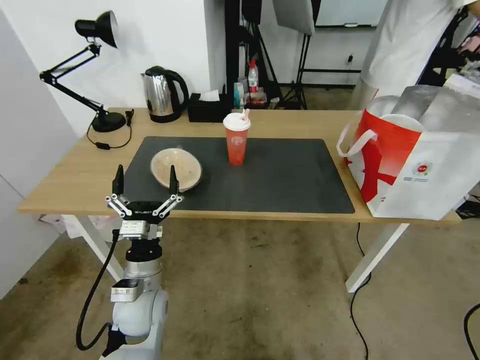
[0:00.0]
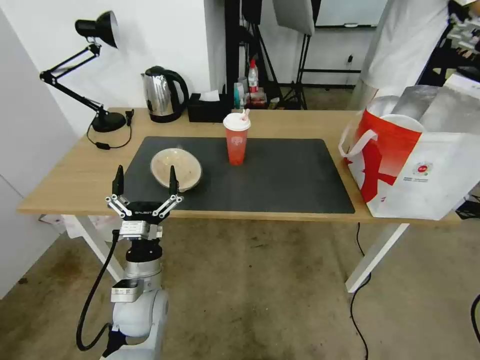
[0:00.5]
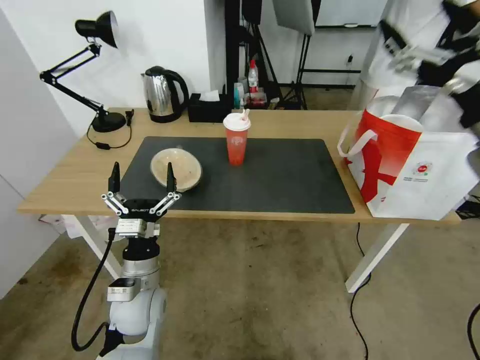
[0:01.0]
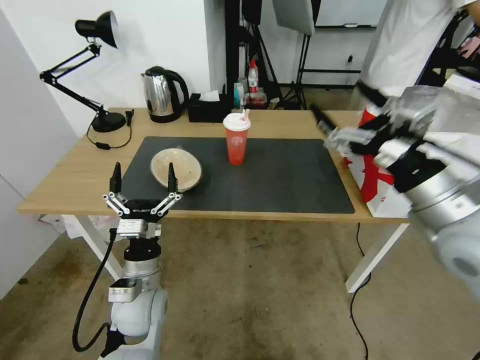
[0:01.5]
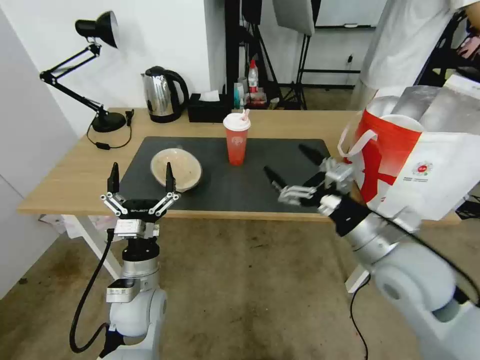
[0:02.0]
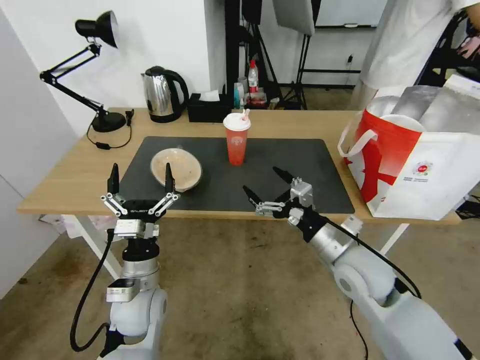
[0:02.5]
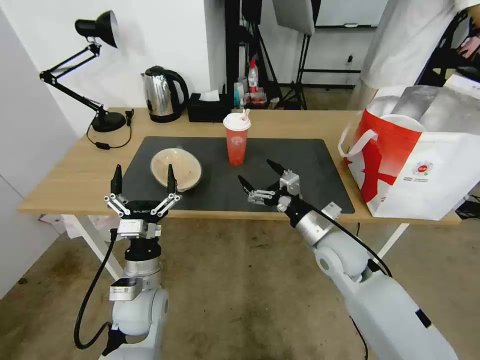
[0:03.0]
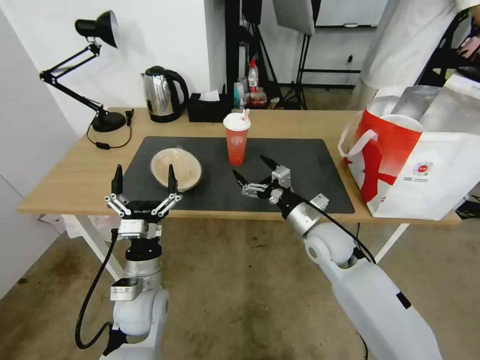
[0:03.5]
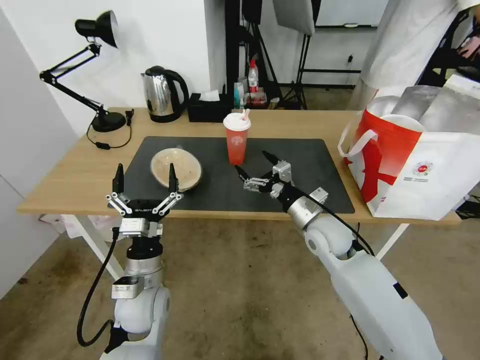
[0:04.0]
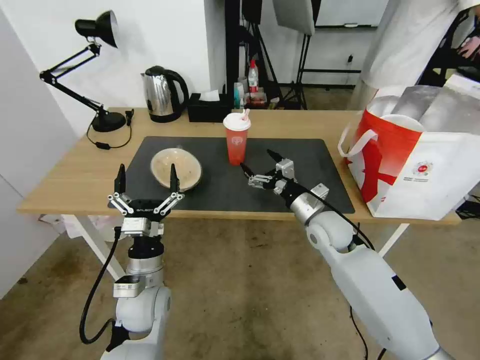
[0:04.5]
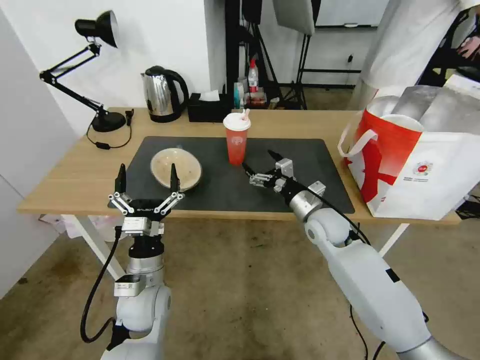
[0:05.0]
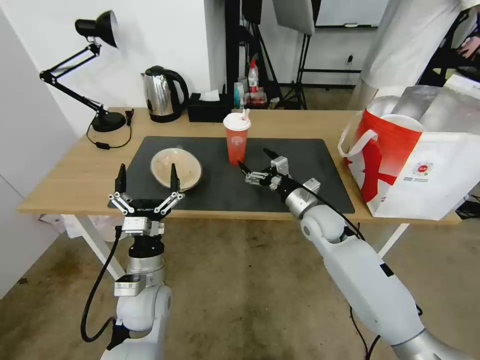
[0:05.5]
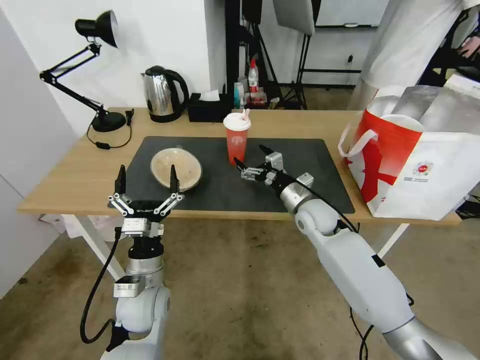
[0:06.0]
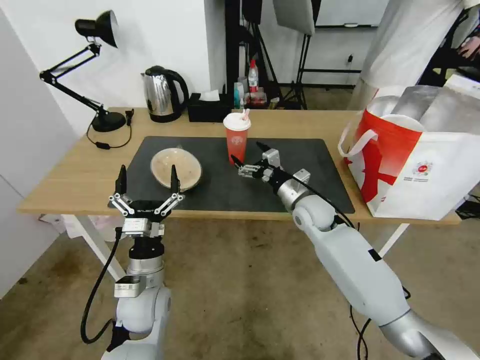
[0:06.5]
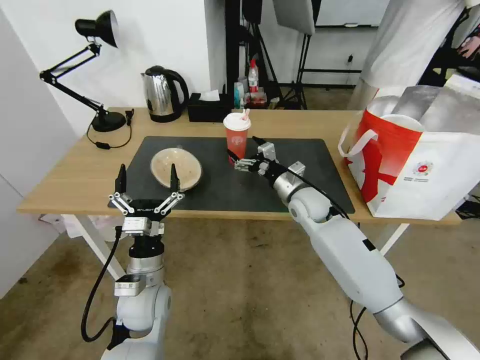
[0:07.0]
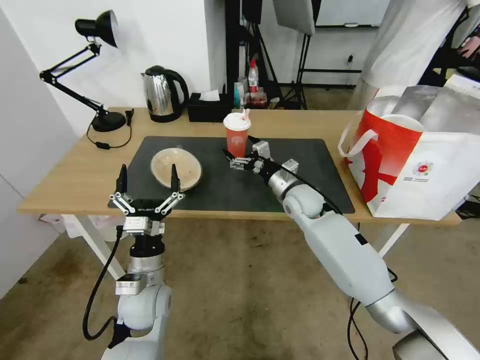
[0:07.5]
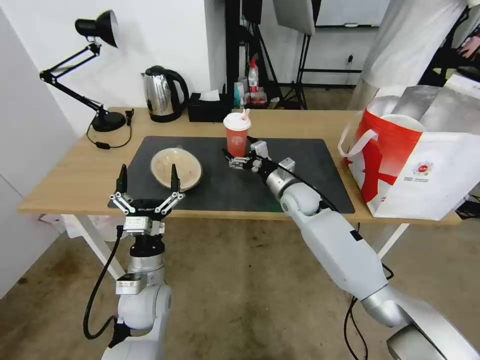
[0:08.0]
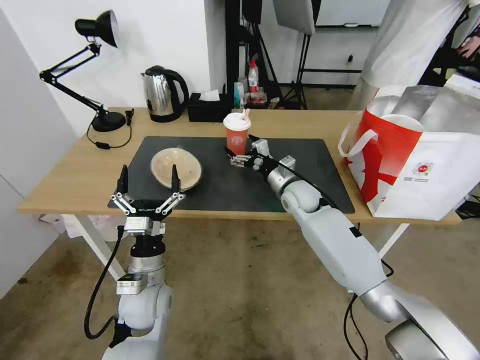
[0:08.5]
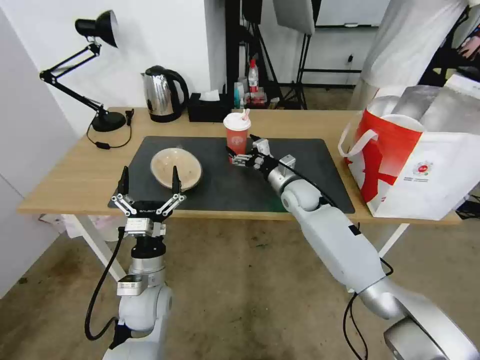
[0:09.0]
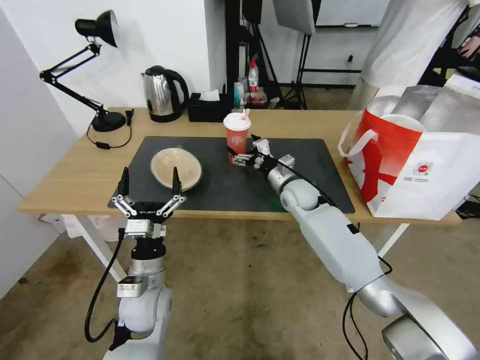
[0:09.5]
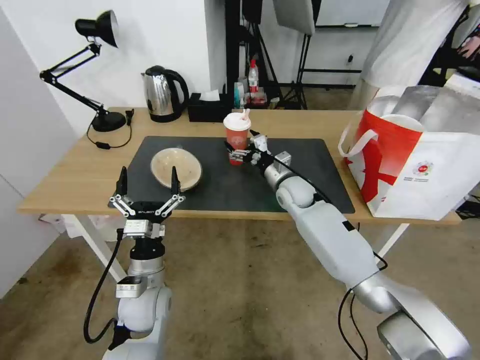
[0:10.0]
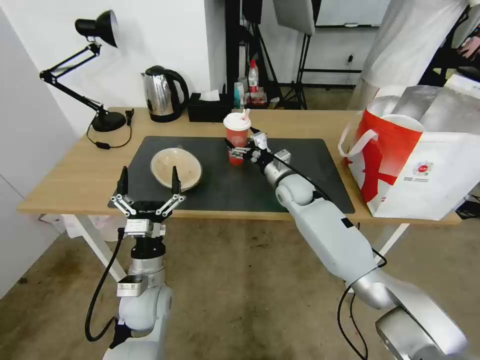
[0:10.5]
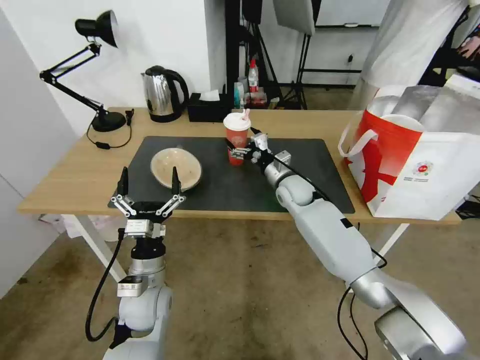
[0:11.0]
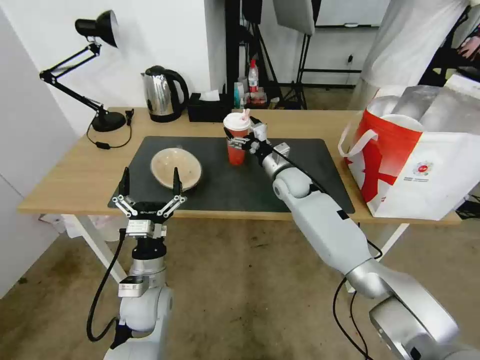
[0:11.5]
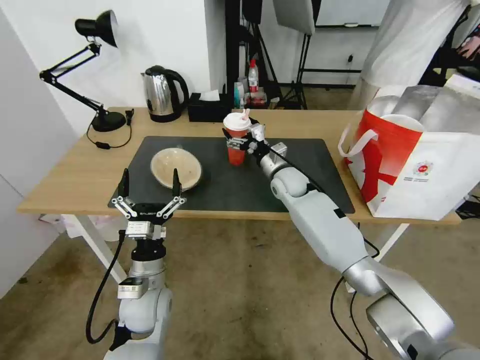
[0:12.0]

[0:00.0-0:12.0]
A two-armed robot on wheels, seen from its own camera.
Task of the whole recording: Pick up the trash from the table and place it into the takeout bag.
0.0 to 2.0 s: The right gripper travels to the left, downward and backward by some 30 cm.
2.0 to 4.0 s: The right gripper goes some 20 cm forward, downward and to the left.
4.0 to 6.0 s: The right gripper moves forward, some 5 cm.
6.0 to 8.0 s: The right gripper shifts approximately 5 cm forward.
8.0 to 12.0 s: The grippers stay close to where they were, moving slightly.

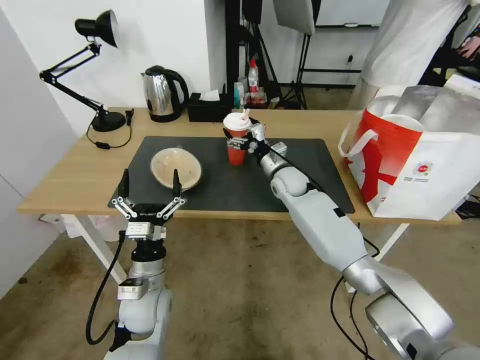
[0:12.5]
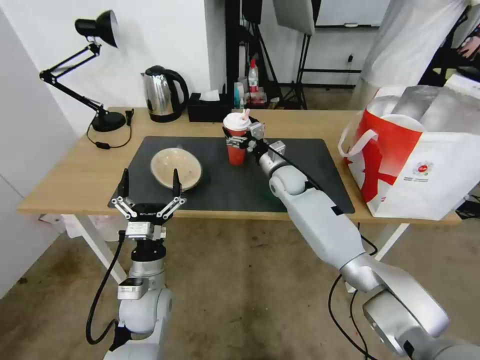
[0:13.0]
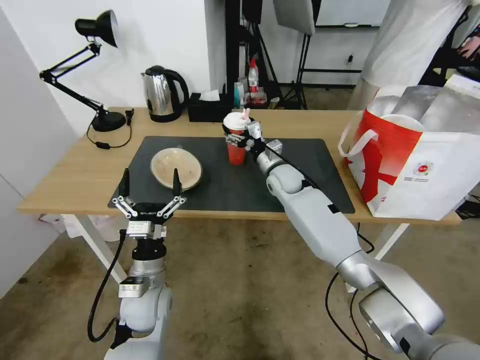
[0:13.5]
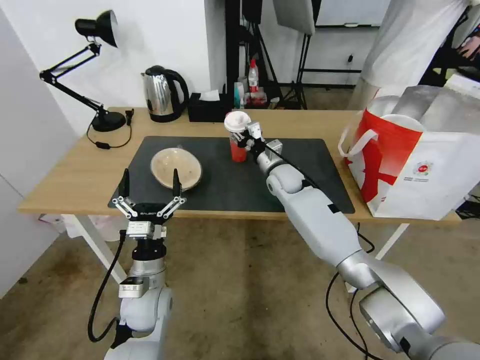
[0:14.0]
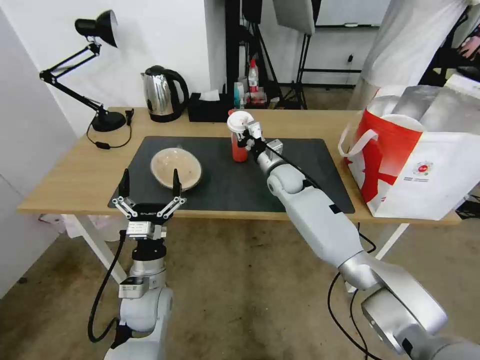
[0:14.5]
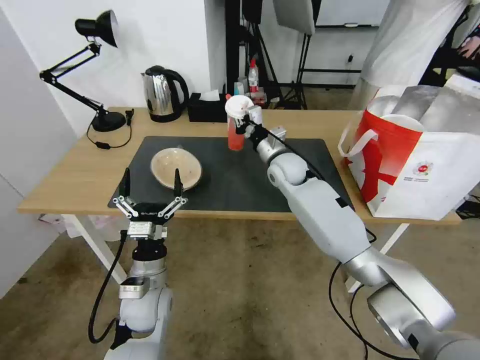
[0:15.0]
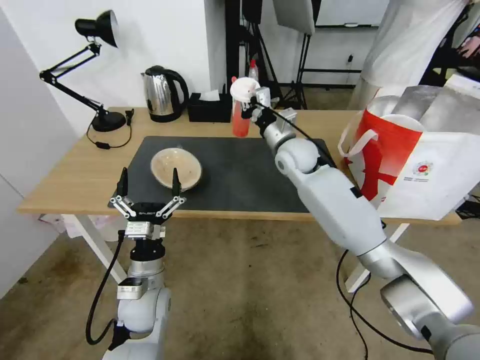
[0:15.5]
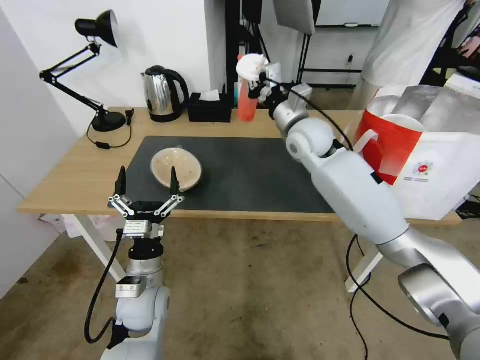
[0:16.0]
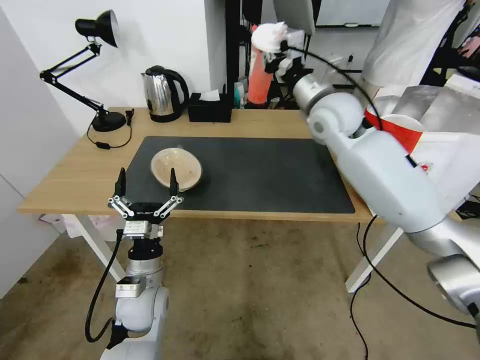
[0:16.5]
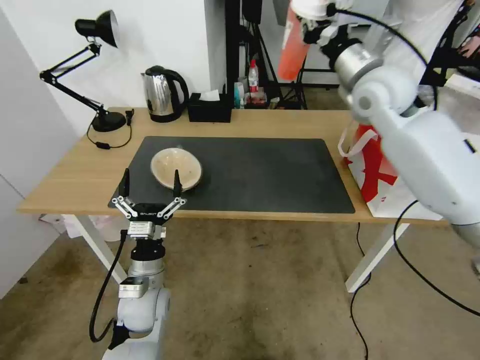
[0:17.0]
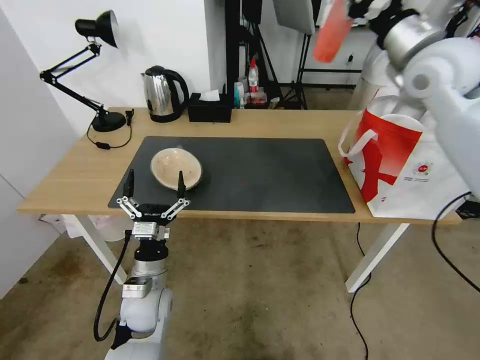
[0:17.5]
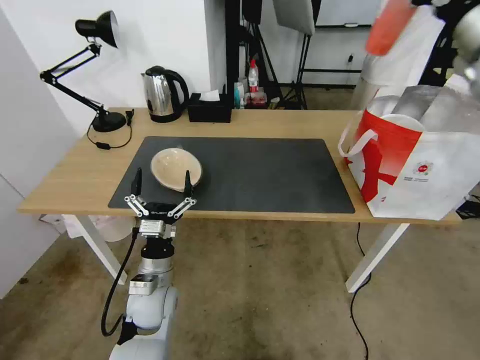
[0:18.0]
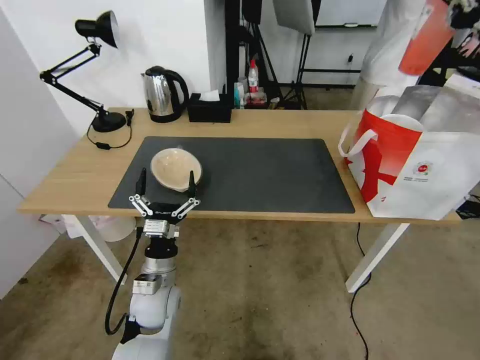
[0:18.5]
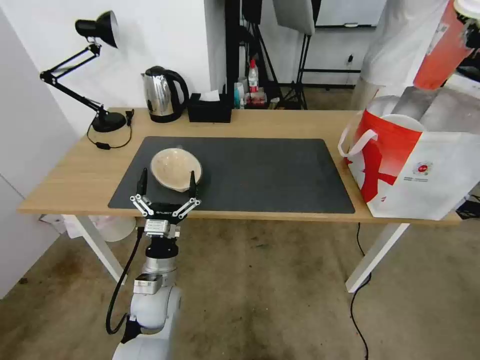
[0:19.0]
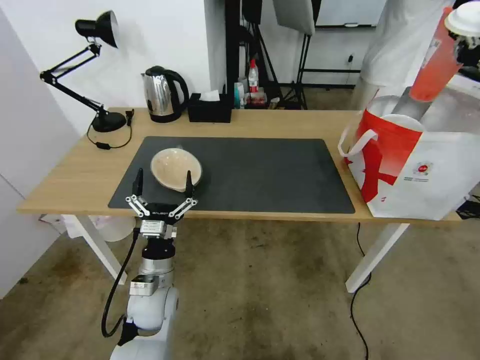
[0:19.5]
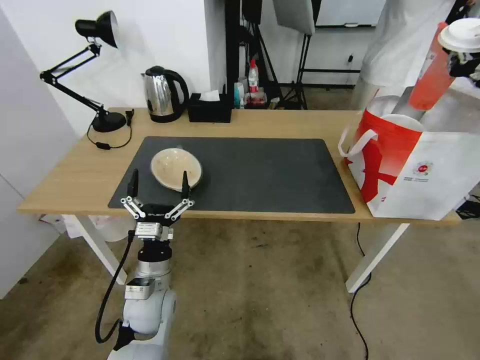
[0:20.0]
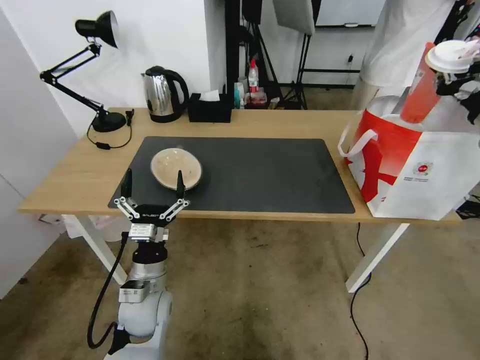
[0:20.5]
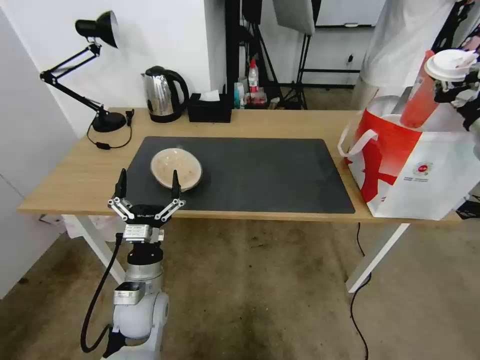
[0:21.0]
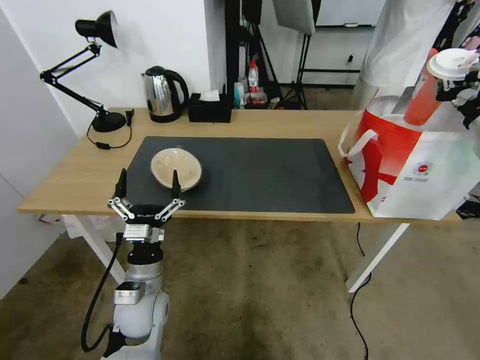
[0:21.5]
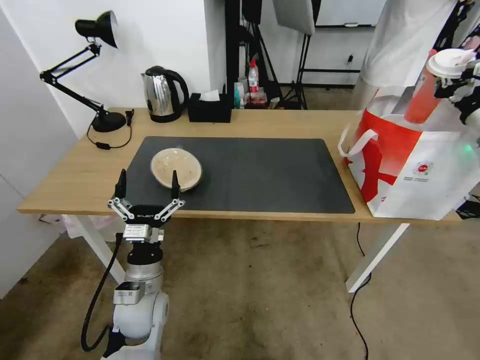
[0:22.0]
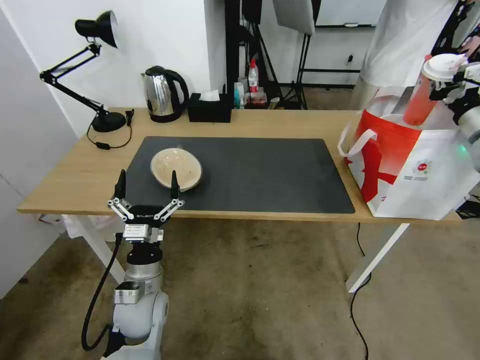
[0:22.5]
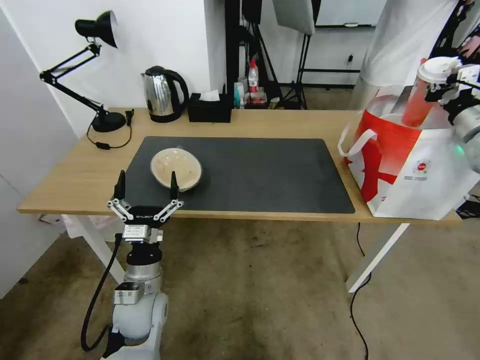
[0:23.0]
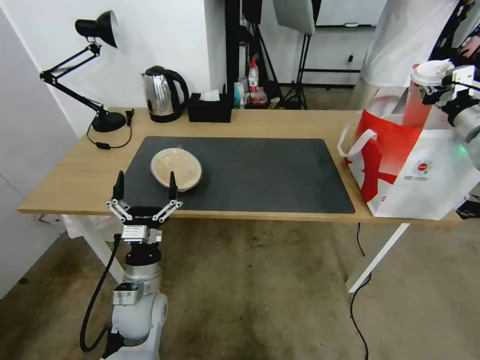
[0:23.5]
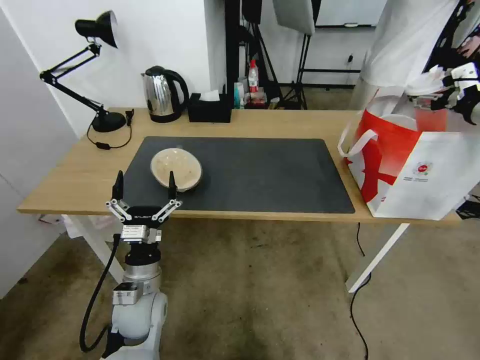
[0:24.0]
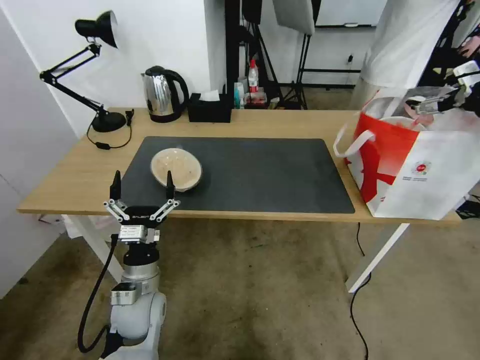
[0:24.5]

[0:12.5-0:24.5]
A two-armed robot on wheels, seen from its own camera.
Task of the whole recording: Pick up the trash from the table and place it into the takeout bag.
12.5 to 14.5 s: The right gripper closes up.
14.5 to 16.5 s: The right gripper shifts approximately 25 cm upward.
16.5 to 18.5 s: The right gripper shifts about 30 cm to the right and backward.
18.5 to 20.5 s: The right gripper goes about 10 cm downward.
20.5 to 22.5 s: The right gripper goes some 5 cm forward.
22.5 to 24.5 s: The right gripper moves upward, roughly 10 cm, and opens up.

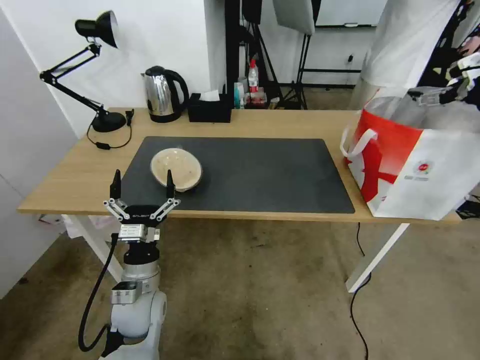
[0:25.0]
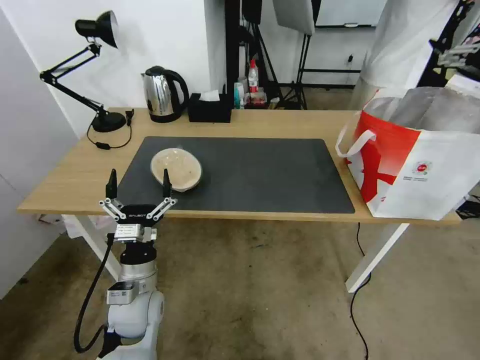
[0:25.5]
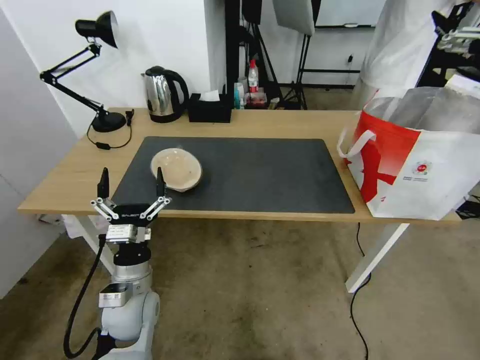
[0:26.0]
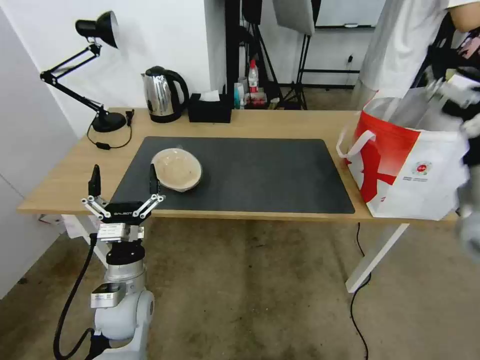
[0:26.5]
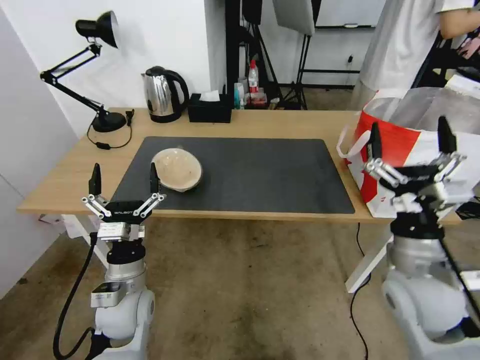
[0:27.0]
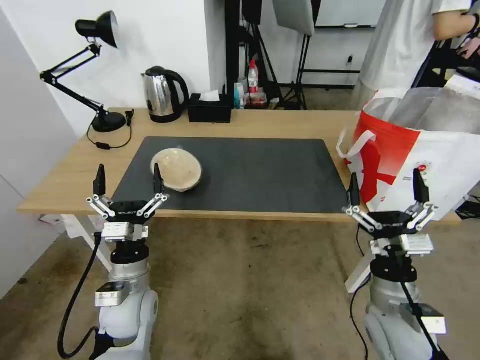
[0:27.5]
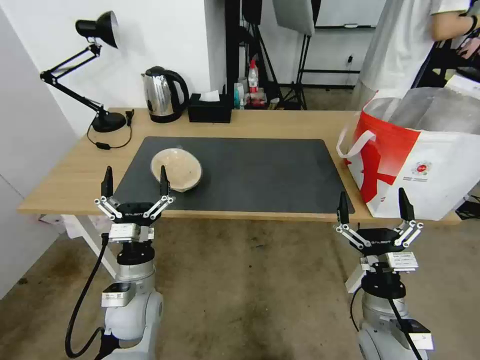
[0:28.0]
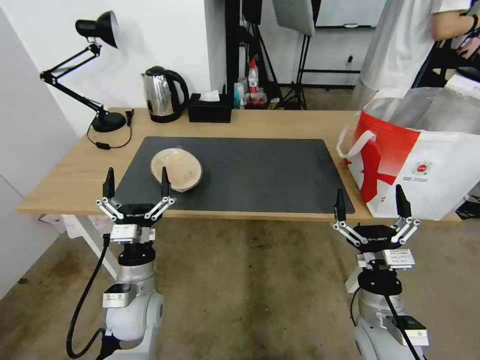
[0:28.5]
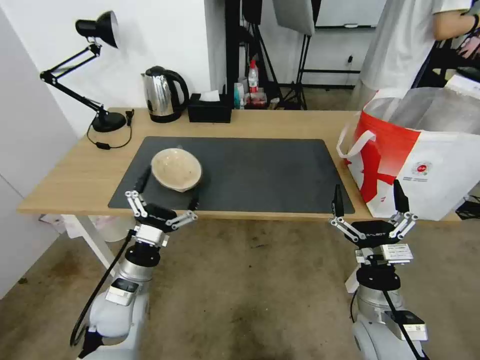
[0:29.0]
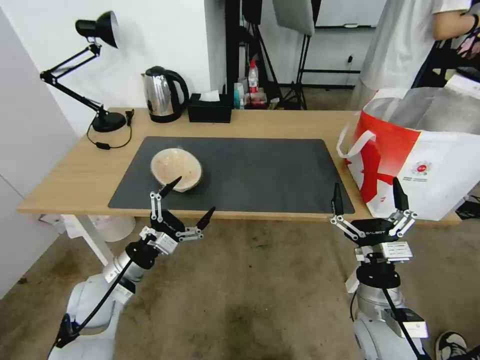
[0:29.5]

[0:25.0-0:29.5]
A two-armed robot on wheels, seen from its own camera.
Task of the whole recording: Pick up the trash from the table and place it into the takeout bag.
25.0 to 27.0 s: The right gripper heads downward, to the left and backward, covering roughly 35 cm.
27.0 to 29.5 s: The left gripper goes approximately 5 cm to the left. Meanwhile the right gripper heads downward, covering roughly 10 cm.
